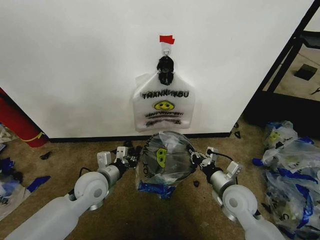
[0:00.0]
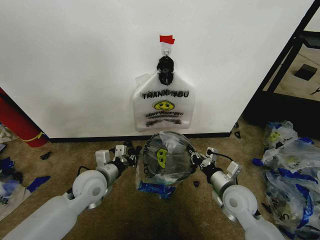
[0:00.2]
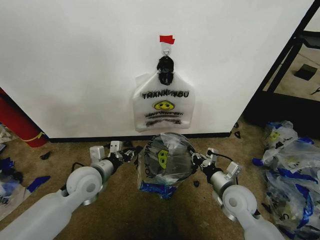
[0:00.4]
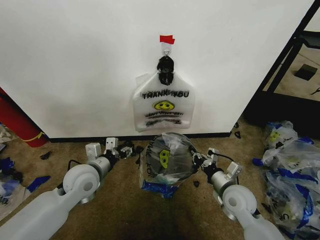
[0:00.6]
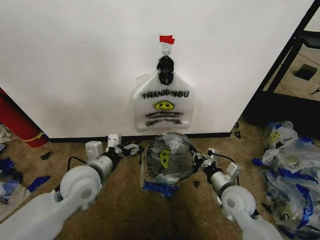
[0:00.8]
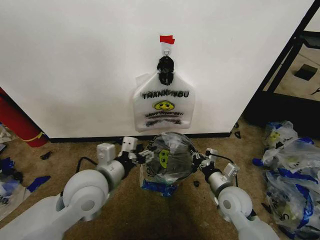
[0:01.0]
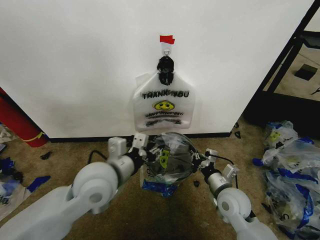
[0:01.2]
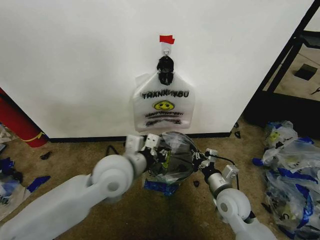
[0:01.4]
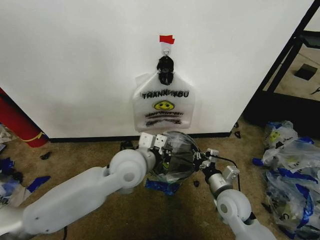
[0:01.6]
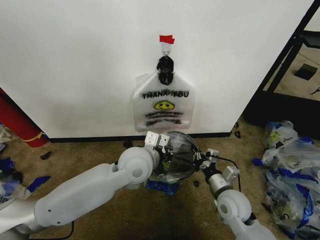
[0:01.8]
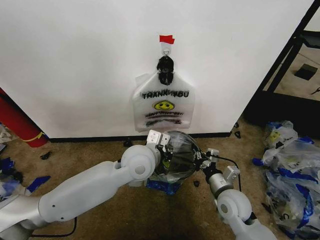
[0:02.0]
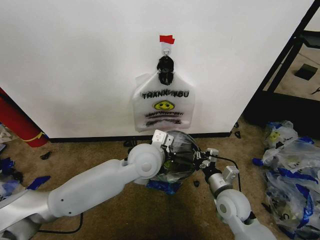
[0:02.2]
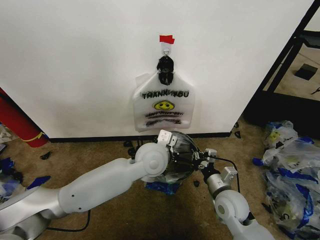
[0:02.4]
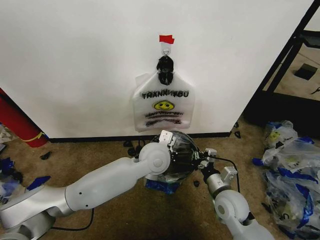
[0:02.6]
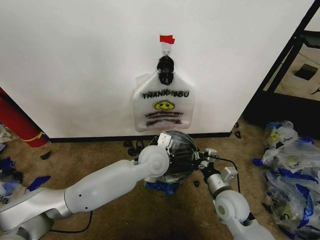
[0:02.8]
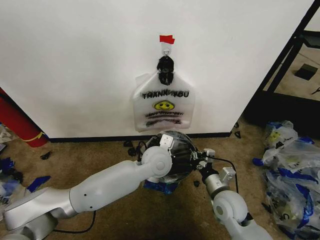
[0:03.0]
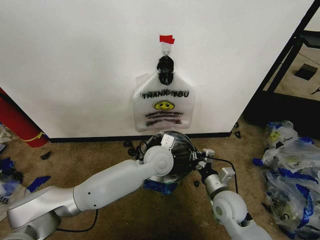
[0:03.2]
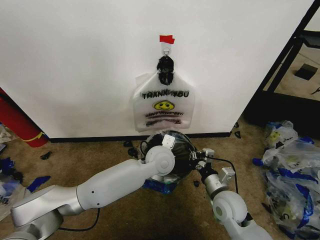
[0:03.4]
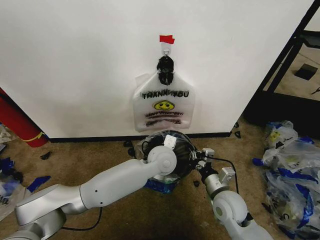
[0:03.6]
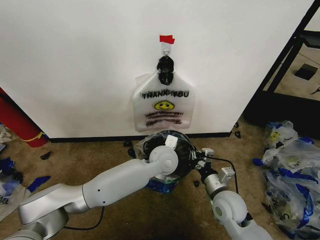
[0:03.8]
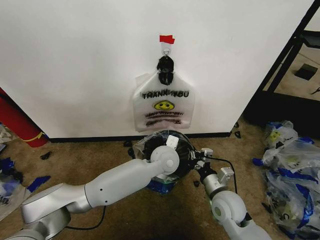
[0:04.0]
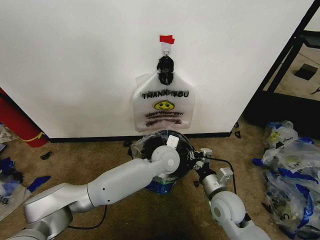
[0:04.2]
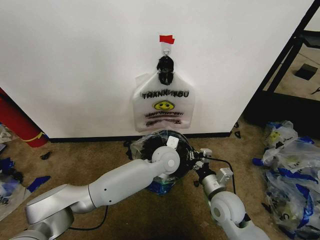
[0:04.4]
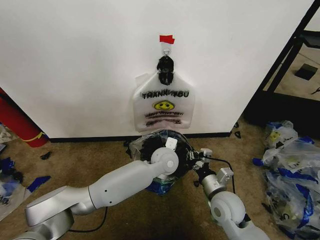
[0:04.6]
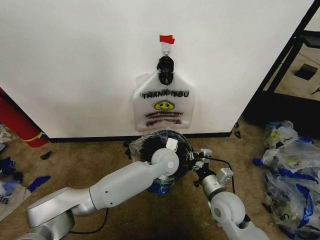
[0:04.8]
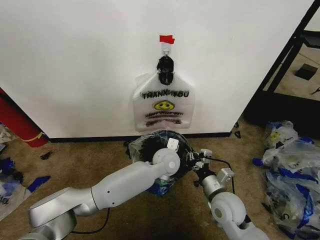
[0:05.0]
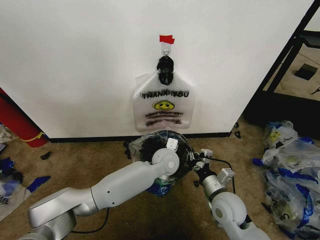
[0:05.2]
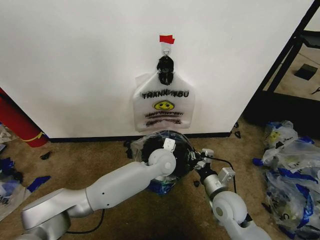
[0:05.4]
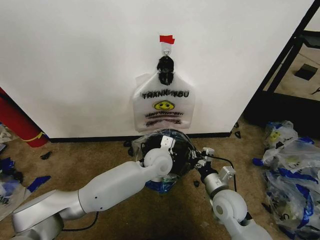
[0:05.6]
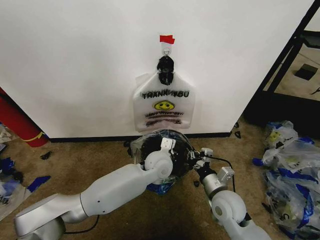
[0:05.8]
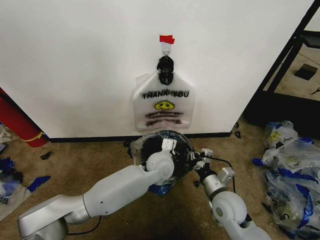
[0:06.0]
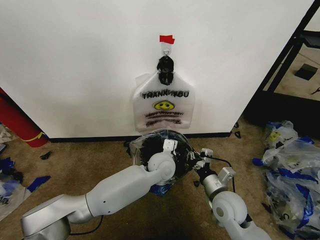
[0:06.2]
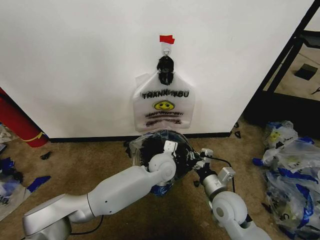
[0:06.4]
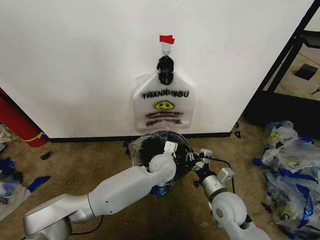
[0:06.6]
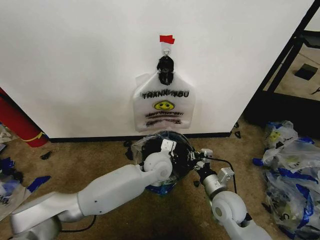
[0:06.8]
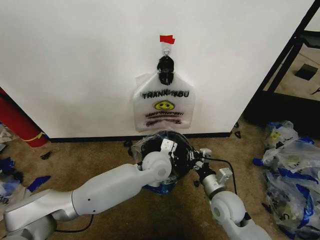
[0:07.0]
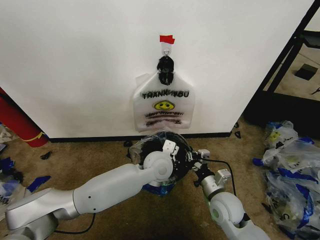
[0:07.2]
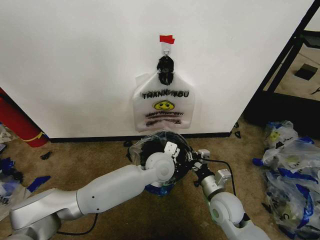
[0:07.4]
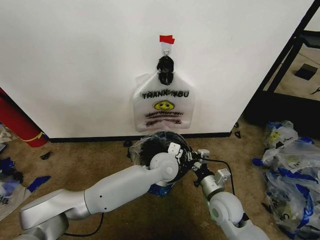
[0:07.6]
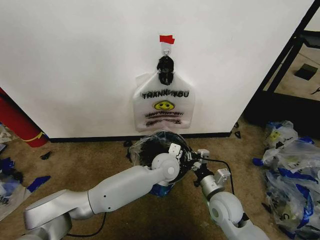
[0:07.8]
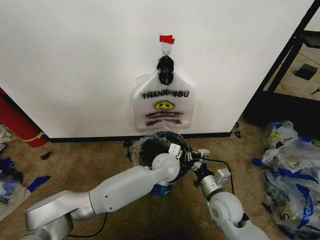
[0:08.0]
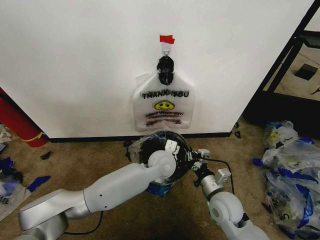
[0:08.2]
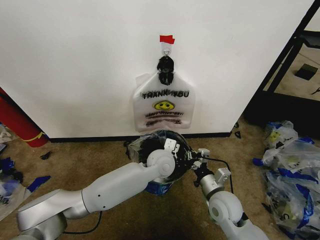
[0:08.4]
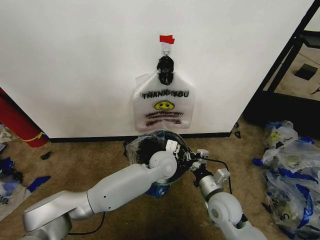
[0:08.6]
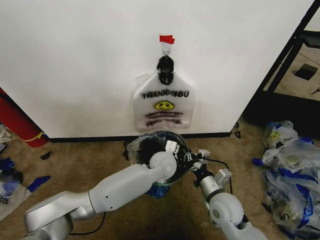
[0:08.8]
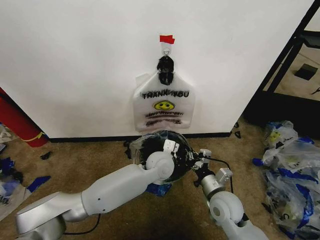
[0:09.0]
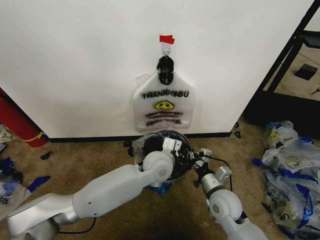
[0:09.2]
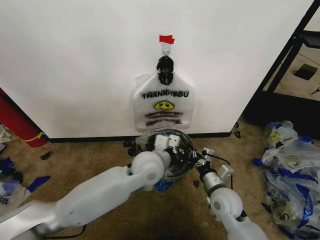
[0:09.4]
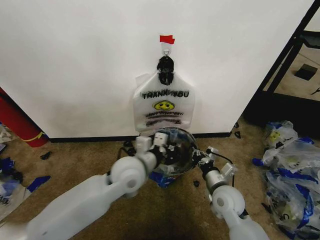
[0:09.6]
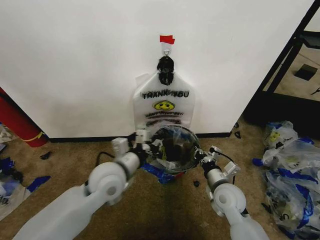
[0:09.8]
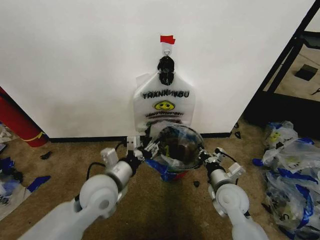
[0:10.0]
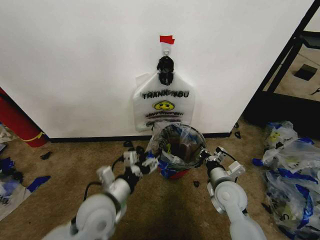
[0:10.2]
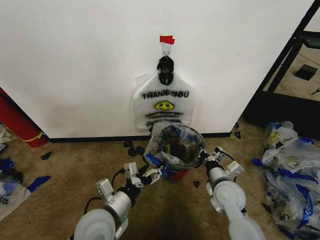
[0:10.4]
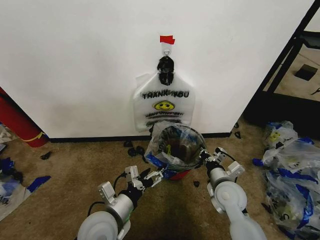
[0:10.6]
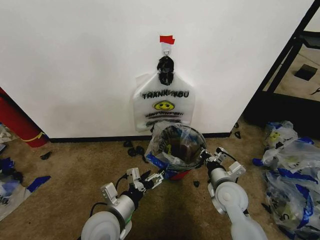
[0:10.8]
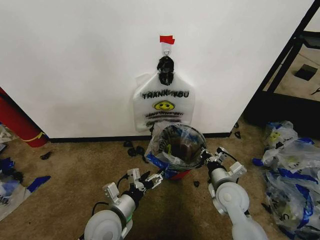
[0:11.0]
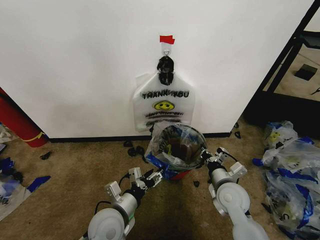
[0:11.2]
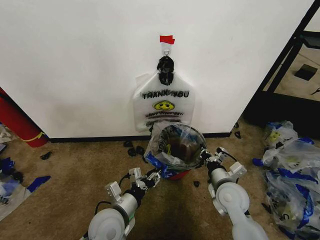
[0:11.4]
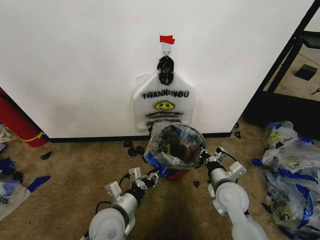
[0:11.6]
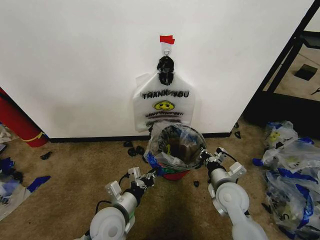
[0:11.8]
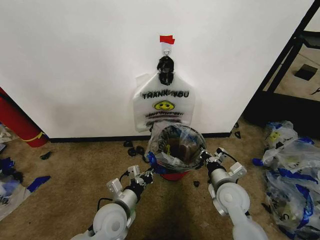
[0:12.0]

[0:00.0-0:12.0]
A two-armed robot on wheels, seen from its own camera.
Task of the whole recording: Pick up the garbage bag from the wall and place it over the trash bin.
0:00.0 to 0:01.6: The left gripper travels to the right and upward by some 15 cm, and opens and closes again.
0:01.6 to 0:03.0: The left gripper shifts roughly 5 cm to the right.
0:03.0 to 0:04.4: The left gripper moves some 5 cm.
0:04.4 to 0:09.0: The grippers move only a little.
0:09.0 to 0:10.4: The left gripper moves backward and to the left, approximately 25 cm, and opens its fingers.
0:10.4 to 0:12.0: The left gripper shifts about 5 cm downward, and closes its fingers.

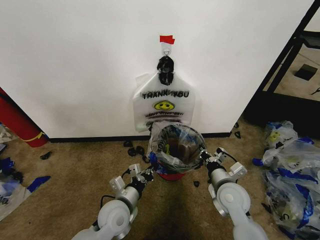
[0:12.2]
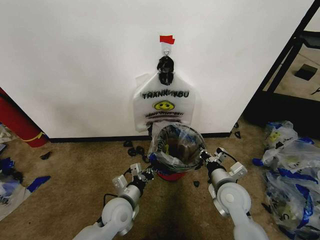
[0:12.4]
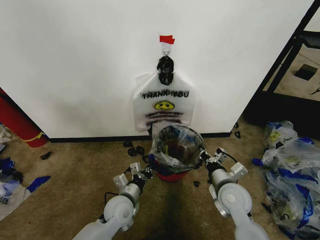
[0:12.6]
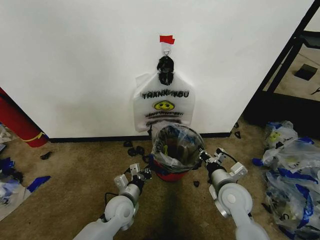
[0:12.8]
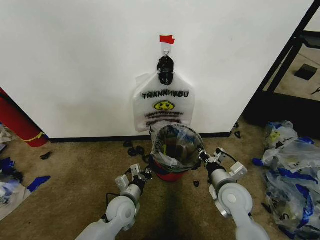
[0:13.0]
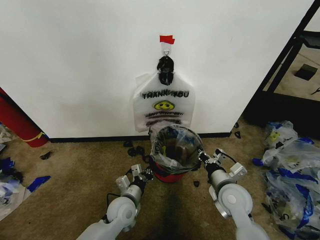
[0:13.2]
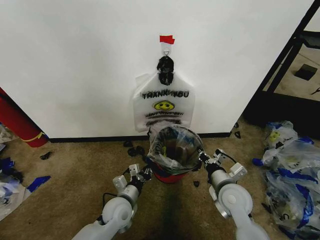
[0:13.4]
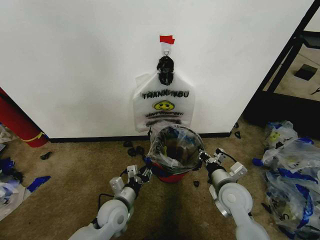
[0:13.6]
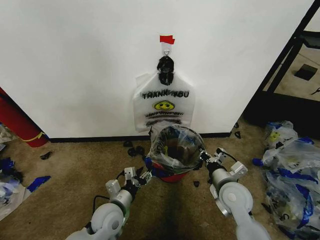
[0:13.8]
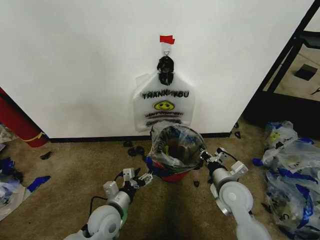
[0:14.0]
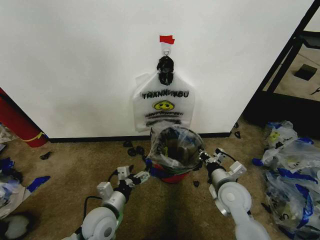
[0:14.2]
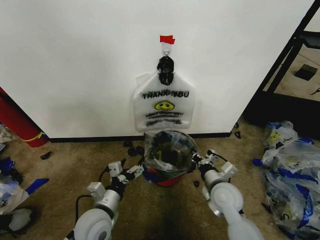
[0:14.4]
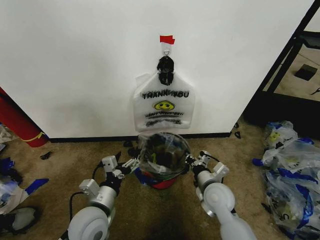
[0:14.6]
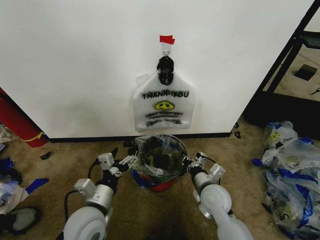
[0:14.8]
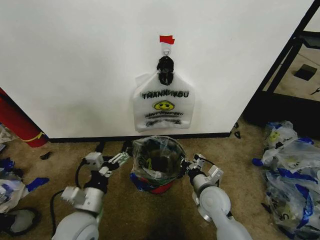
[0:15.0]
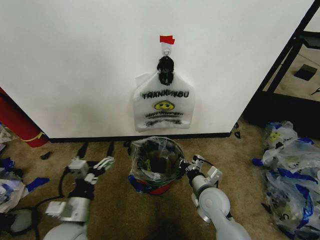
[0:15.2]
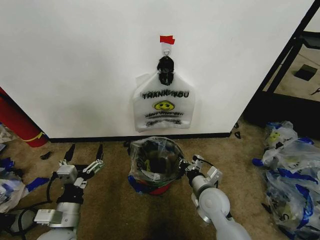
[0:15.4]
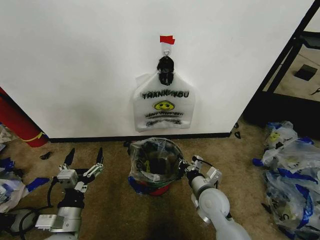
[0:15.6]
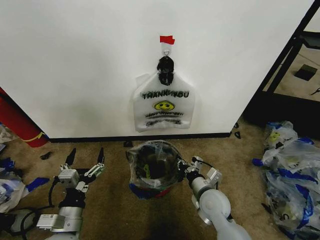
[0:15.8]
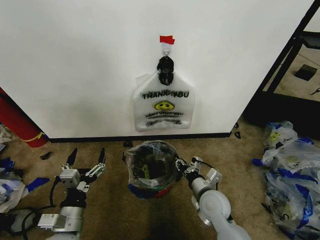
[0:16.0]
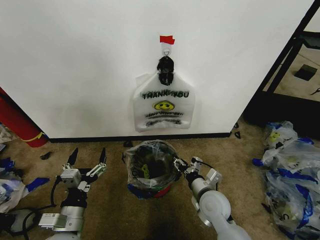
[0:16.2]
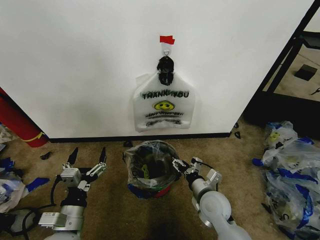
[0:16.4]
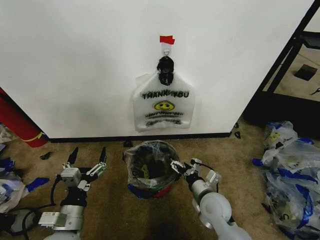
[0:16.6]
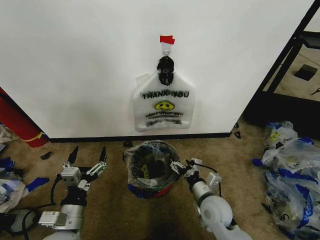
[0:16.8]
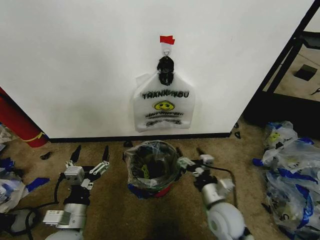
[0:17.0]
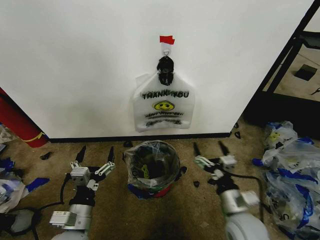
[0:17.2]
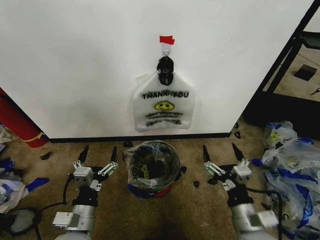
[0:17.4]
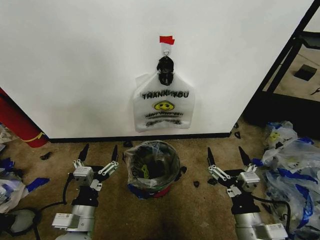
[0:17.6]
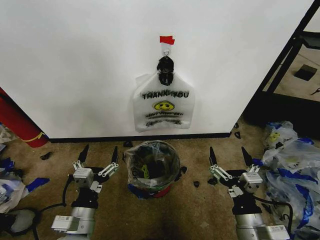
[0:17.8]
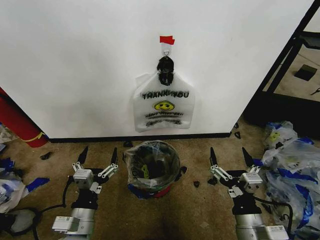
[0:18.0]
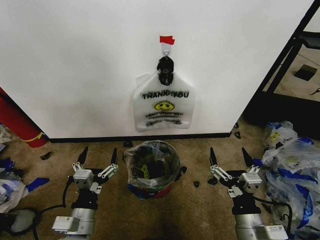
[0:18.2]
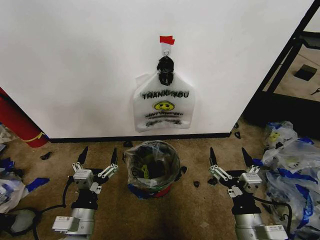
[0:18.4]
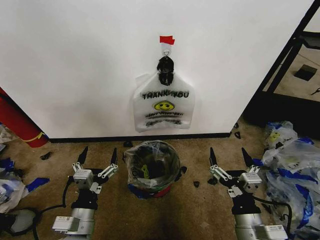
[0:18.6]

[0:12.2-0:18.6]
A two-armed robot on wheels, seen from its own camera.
Task of the whole recording: Pick up the garbage bag from the wall and place it over the trash bin.
0:12.2 to 0:13.8: The left gripper opens up.
0:13.8 to 0:15.4: The left gripper heads to the left, backward and upward, covering about 15 cm. The right gripper heads to the left, covering roughly 5 cm.
0:15.4 to 0:17.0: The right gripper moves backward, some 5 cm, and opens.
0:17.0 to 0:18.6: The right gripper moves backward and upward, some 10 cm.

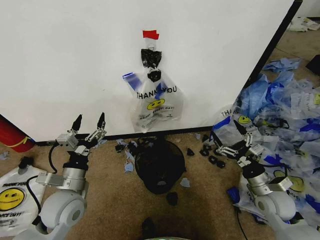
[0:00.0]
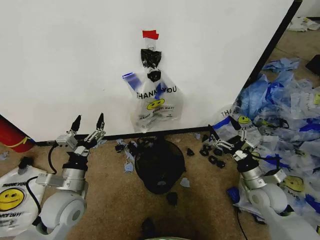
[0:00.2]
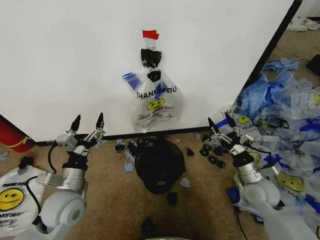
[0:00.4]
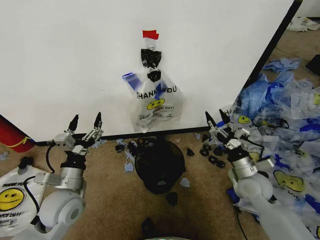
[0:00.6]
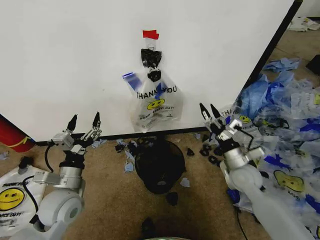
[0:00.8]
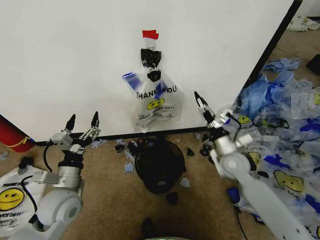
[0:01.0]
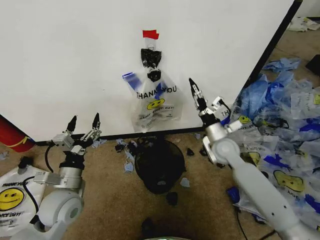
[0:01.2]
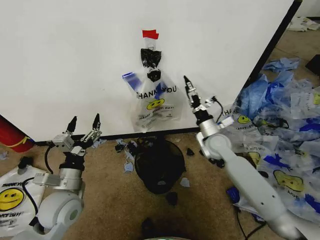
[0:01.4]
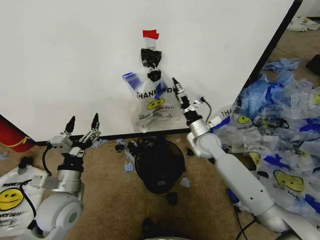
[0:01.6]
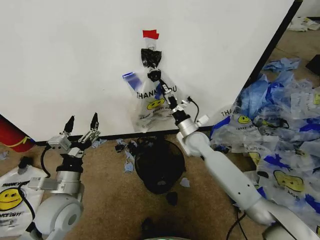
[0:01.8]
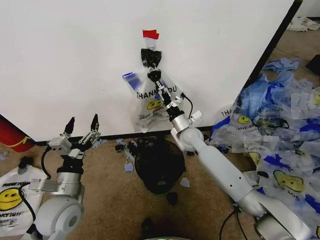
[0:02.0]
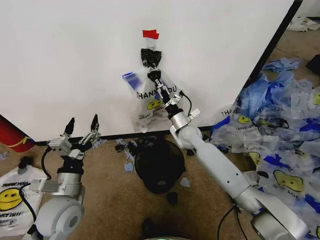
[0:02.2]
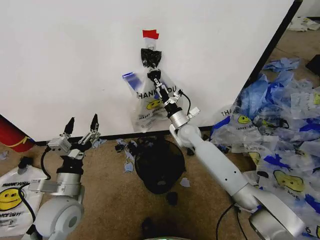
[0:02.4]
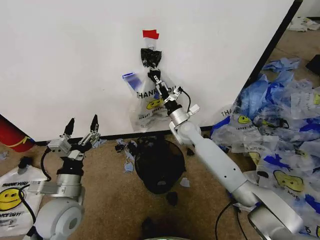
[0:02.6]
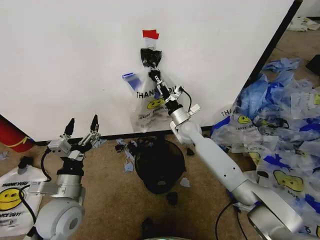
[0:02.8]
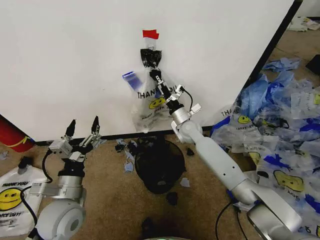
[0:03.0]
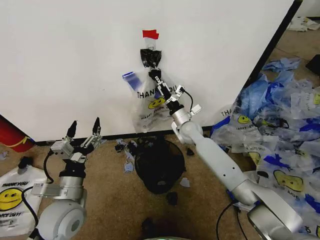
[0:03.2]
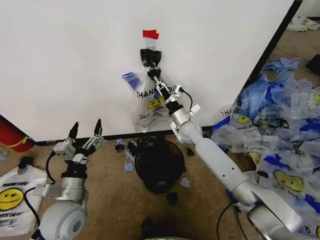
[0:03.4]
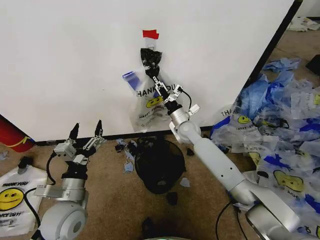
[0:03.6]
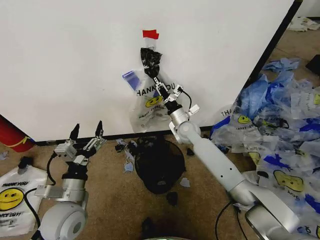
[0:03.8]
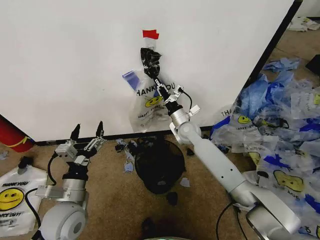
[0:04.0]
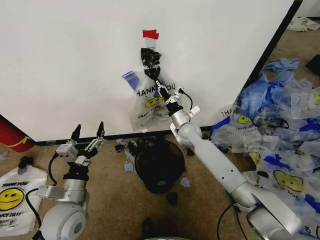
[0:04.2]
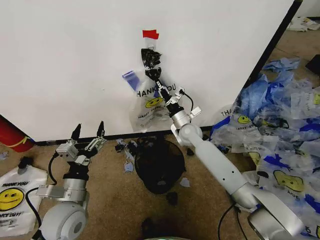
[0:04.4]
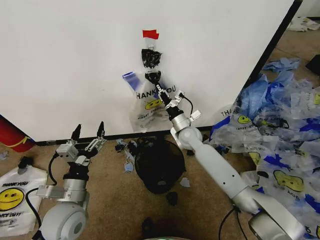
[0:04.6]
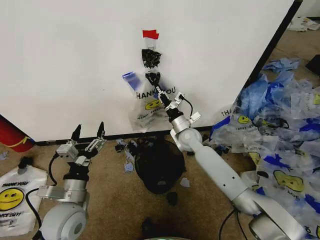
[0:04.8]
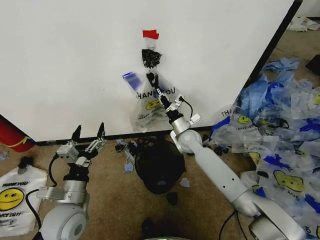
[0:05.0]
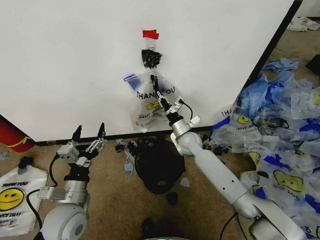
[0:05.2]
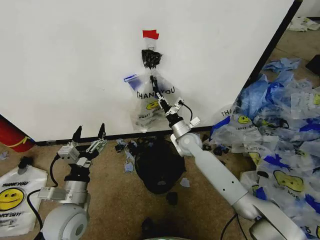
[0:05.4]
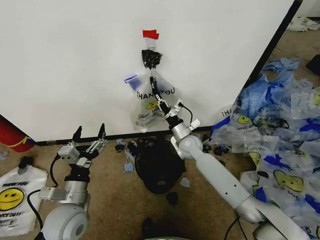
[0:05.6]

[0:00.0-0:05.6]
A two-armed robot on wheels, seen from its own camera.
Task of the whole recording: Pick up the garbage bag from the wall and place it over the trash bin.
0:01.4 to 0:02.8: The right gripper travels to the left and forward by some 10 cm.
0:02.8 to 0:04.2: The right gripper closes its fingers.
0:04.2 to 0:05.6: The right gripper changes place by roughly 5 cm.
